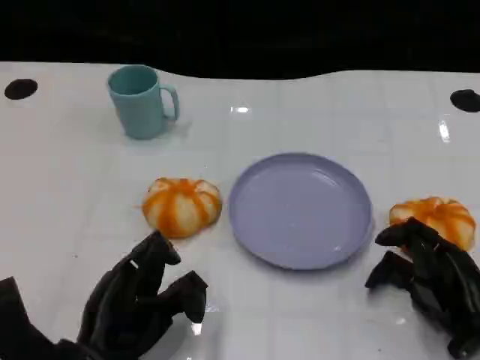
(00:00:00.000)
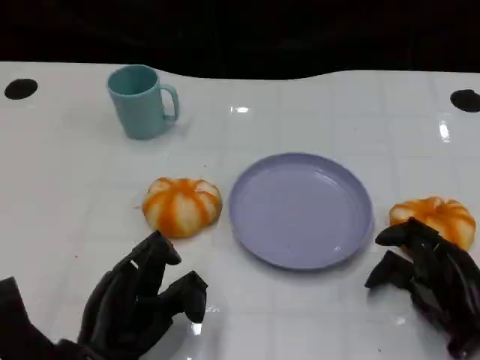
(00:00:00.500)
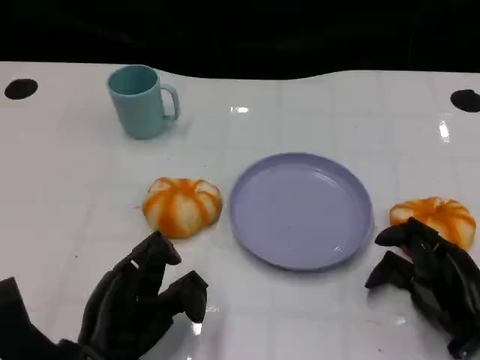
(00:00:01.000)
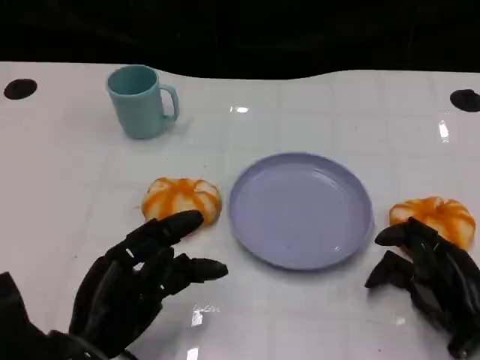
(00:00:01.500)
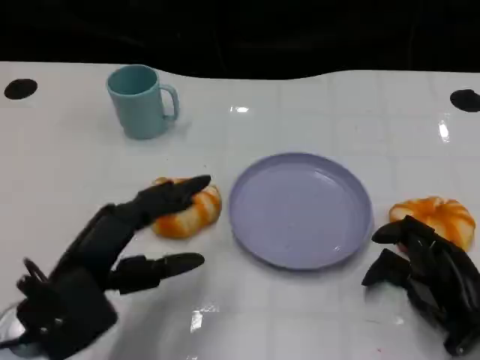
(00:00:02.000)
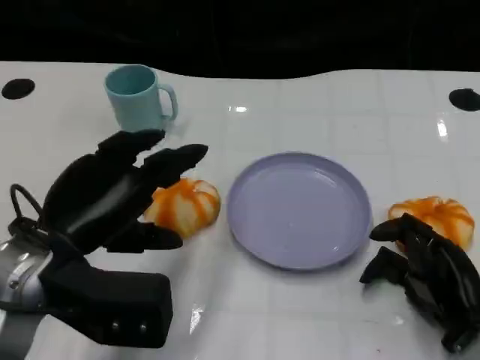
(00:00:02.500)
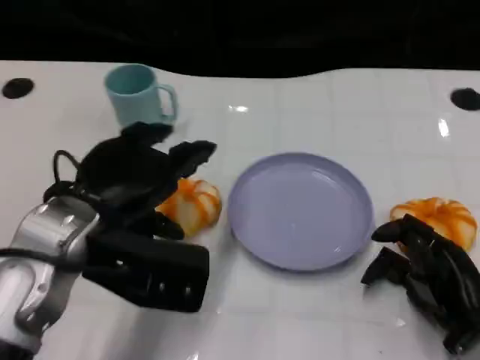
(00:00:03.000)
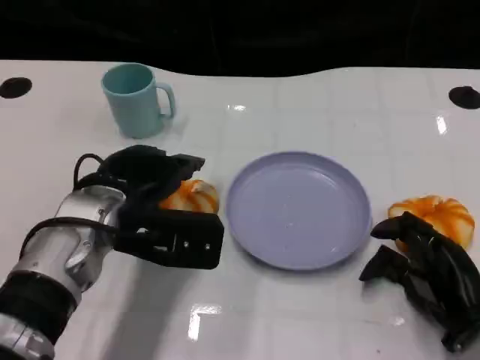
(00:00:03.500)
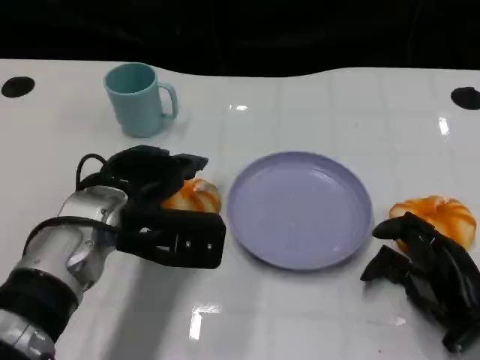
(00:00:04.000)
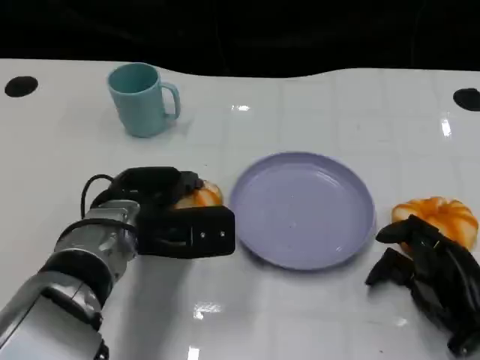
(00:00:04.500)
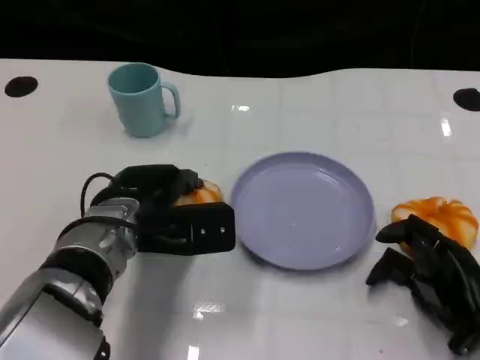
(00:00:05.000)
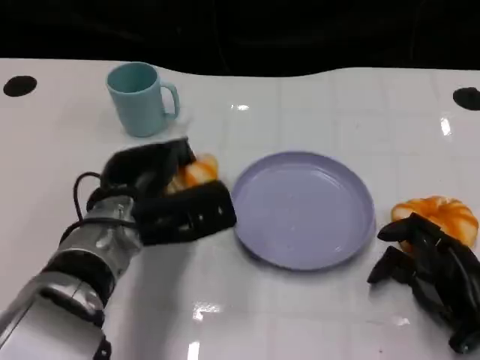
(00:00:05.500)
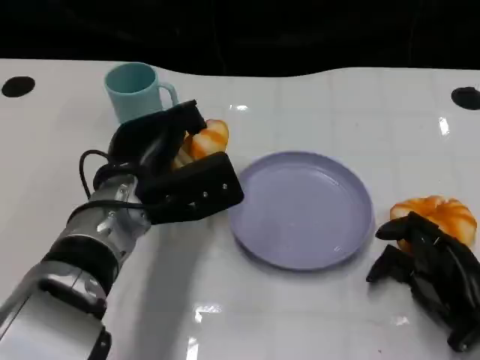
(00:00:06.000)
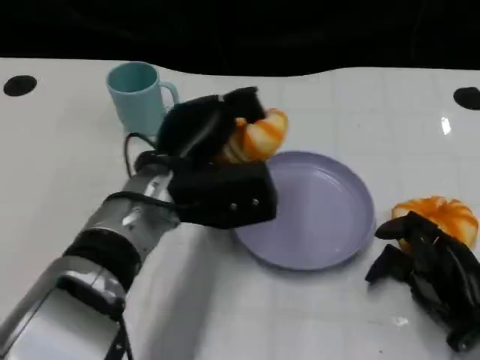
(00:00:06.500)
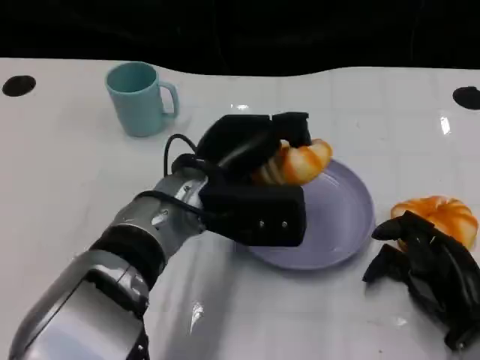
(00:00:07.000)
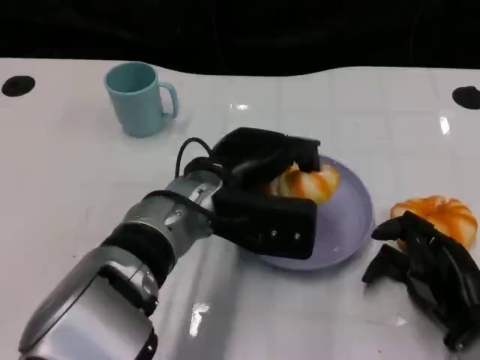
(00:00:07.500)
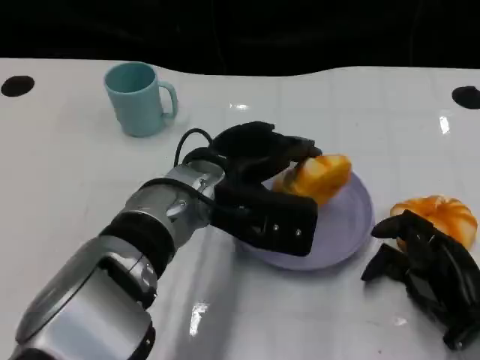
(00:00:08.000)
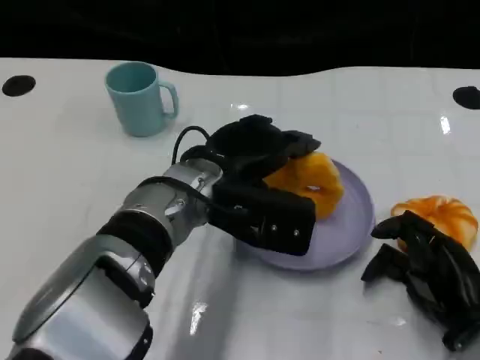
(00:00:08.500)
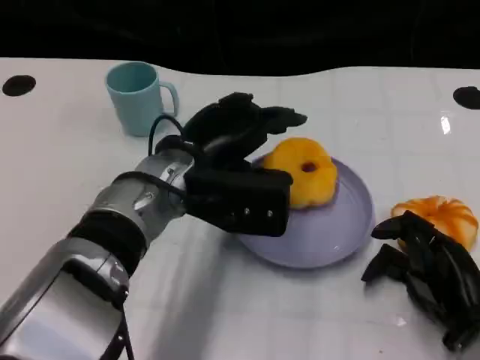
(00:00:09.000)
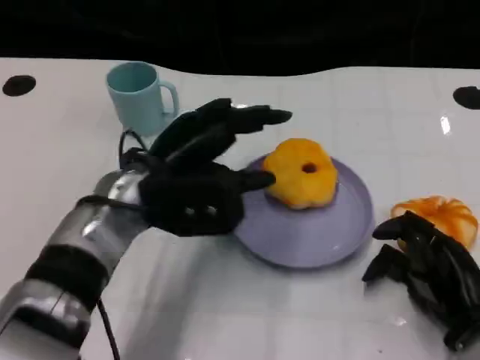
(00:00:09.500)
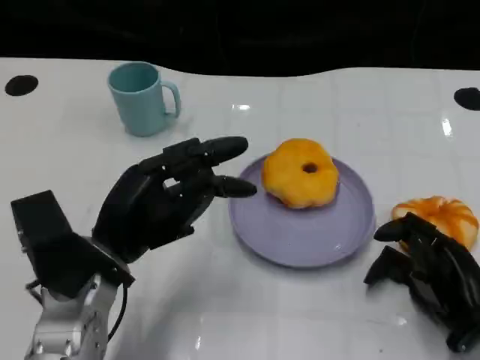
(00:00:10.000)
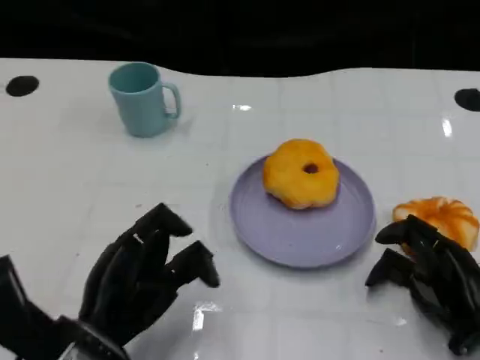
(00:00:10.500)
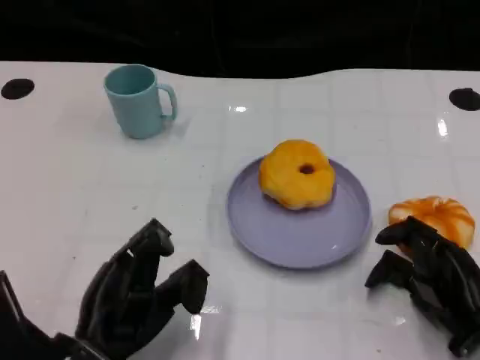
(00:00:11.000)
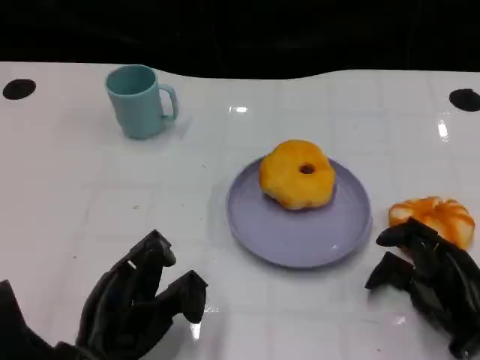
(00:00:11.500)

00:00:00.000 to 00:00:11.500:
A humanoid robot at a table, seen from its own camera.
Task of the whole recording: Grasp the bread from the table and place it into the plate.
00:00:00.000 to 00:00:02.000: The left hand heads upward, covering some 10 cm.
00:00:02.000 to 00:00:04.000: The left hand moves forward and to the right, roughly 10 cm.
00:00:06.000 to 00:00:07.500: The left hand moves to the right, about 5 cm.
00:00:07.500 to 00:00:09.500: The left hand travels to the left by approximately 5 cm.
00:00:09.500 to 00:00:11.500: The left hand goes roughly 15 cm backward, downward and to the left.

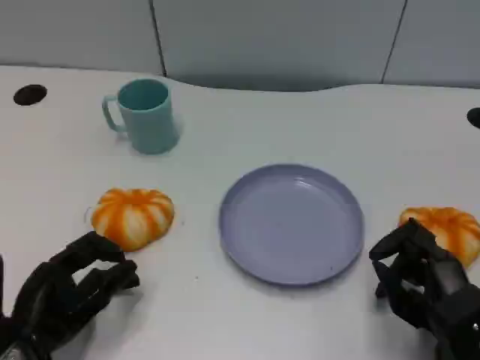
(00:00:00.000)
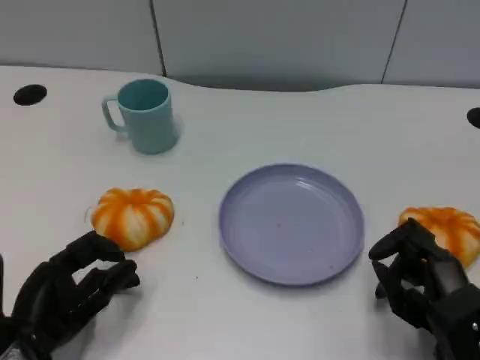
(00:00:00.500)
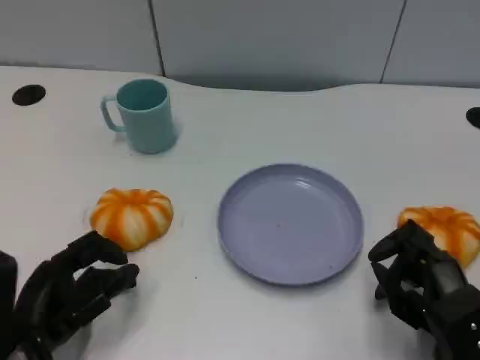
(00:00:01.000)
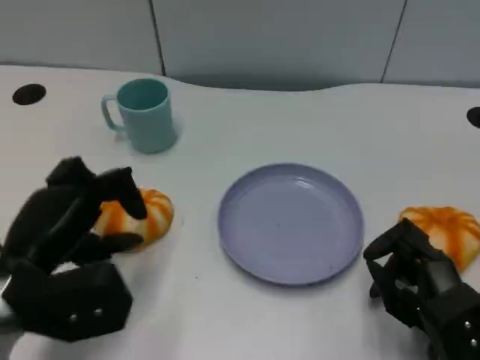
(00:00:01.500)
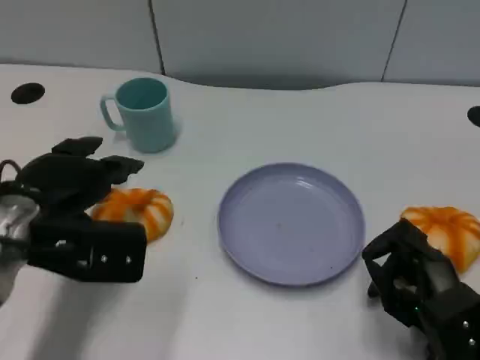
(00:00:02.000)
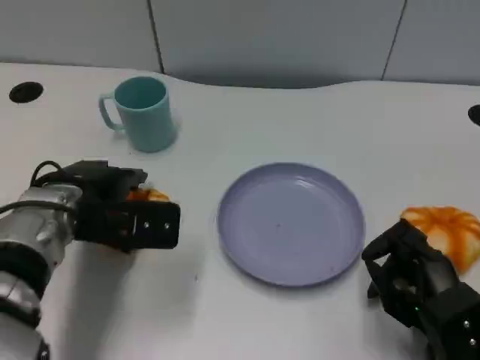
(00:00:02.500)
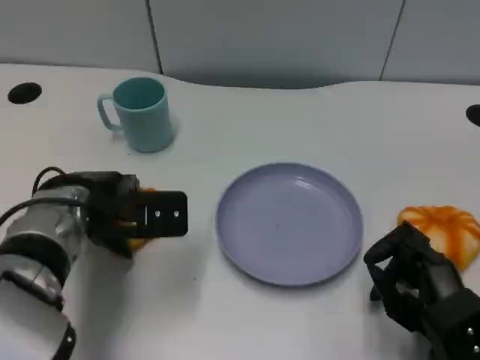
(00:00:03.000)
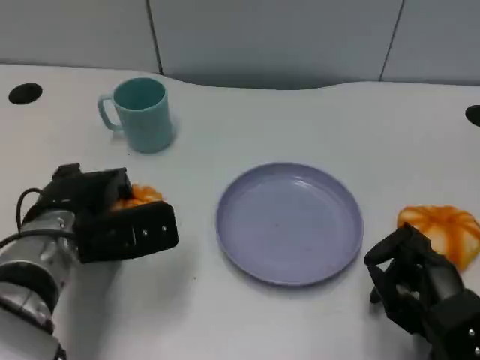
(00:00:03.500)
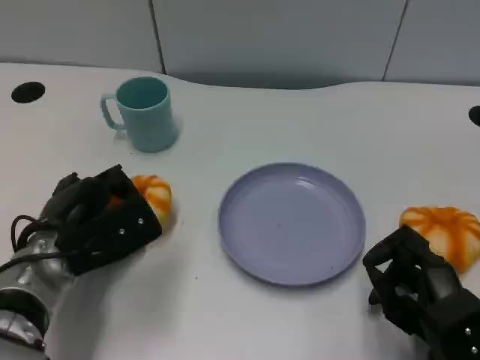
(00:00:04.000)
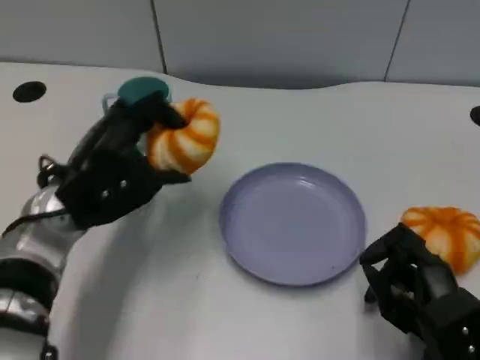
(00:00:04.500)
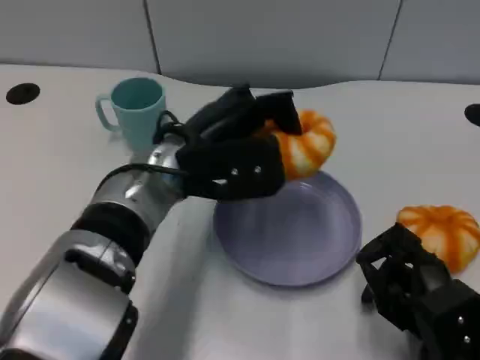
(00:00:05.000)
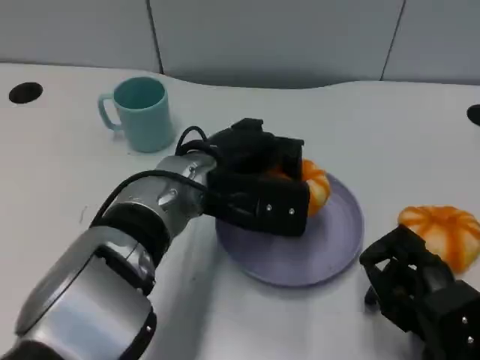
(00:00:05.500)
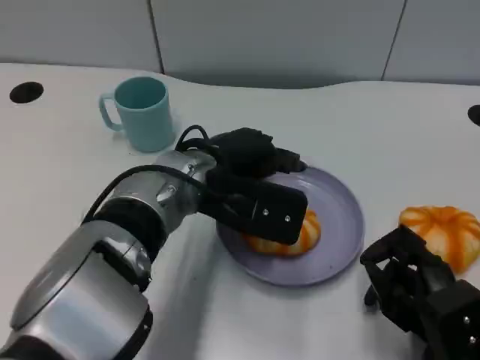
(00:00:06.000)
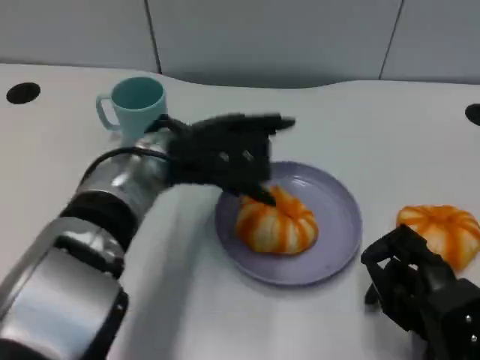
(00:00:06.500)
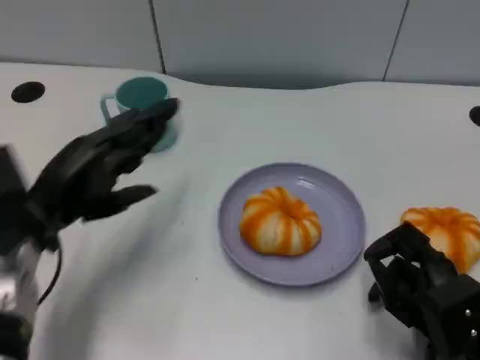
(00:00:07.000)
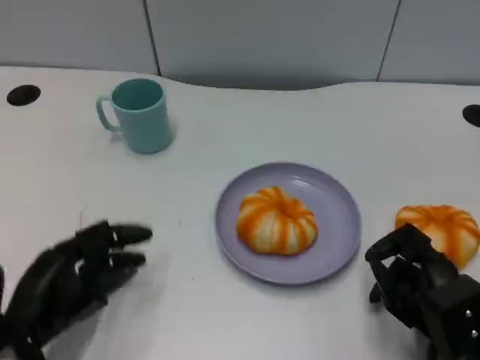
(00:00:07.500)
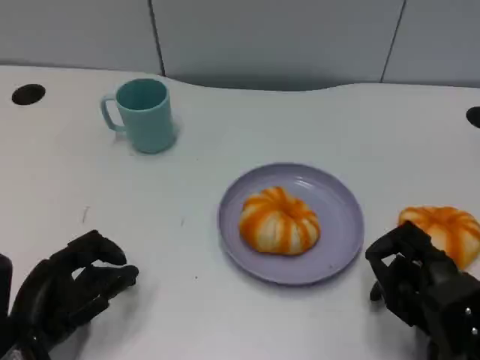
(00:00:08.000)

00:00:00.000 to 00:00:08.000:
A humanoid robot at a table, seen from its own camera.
Task of the whole recording: Grasp the bread from the table and place it into the plate.
00:00:00.000 to 00:00:02.000: The left hand heads upward and forward, covering some 15 cm.
00:00:02.000 to 00:00:04.000: The left hand shifts roughly 5 cm downward.
00:00:04.000 to 00:00:06.000: The left hand goes some 15 cm to the right and upward.
00:00:06.000 to 00:00:08.000: The left hand heads to the left, backward and downward, covering approximately 25 cm.

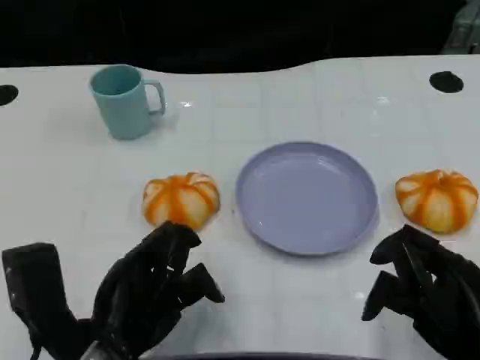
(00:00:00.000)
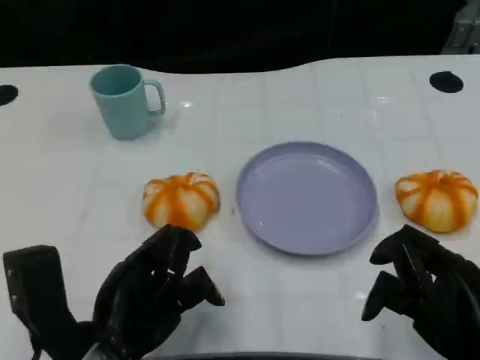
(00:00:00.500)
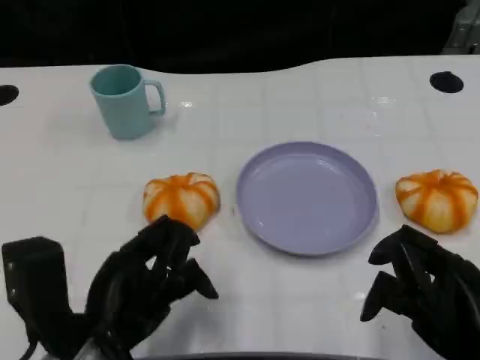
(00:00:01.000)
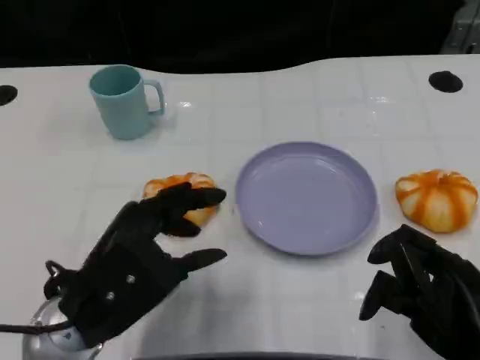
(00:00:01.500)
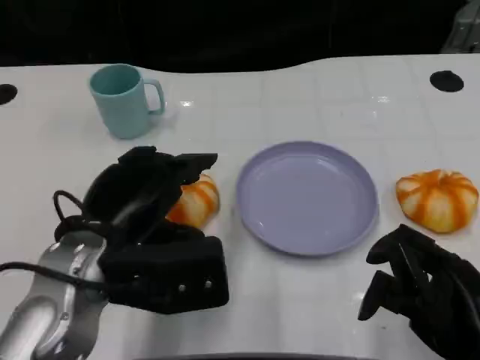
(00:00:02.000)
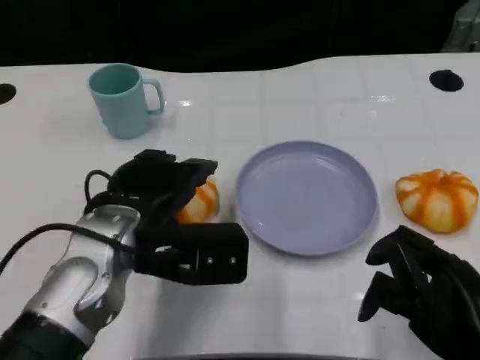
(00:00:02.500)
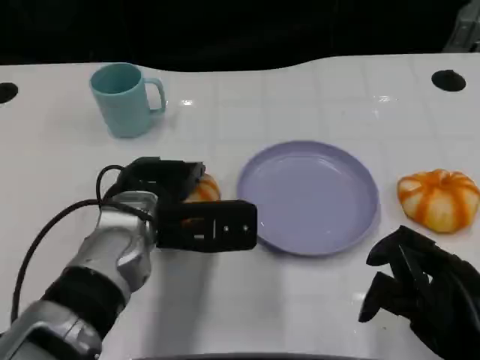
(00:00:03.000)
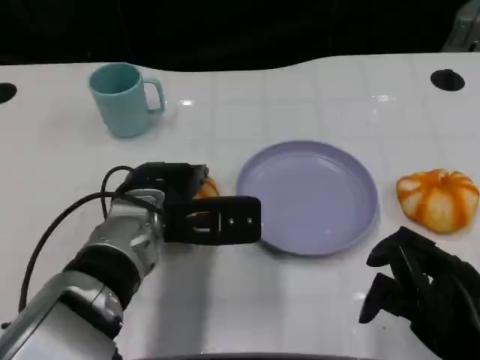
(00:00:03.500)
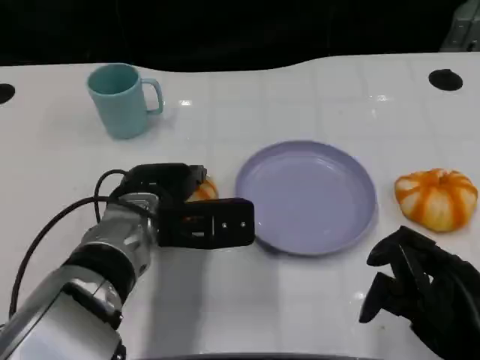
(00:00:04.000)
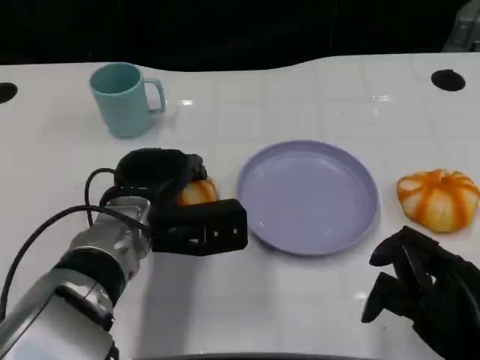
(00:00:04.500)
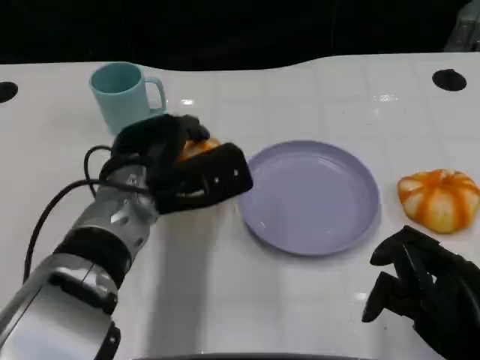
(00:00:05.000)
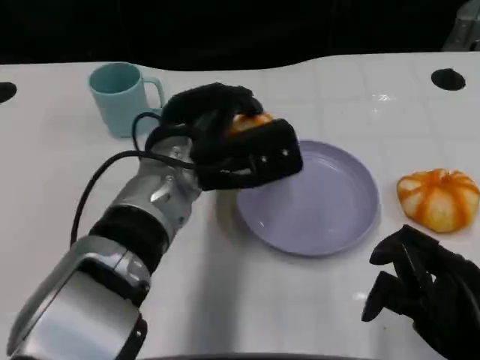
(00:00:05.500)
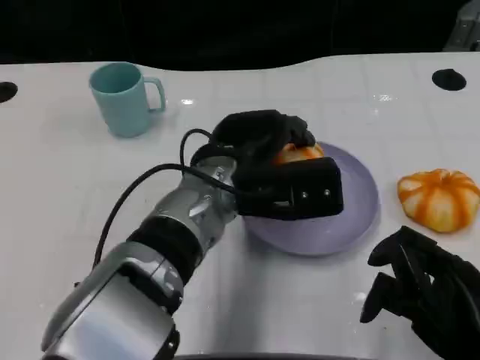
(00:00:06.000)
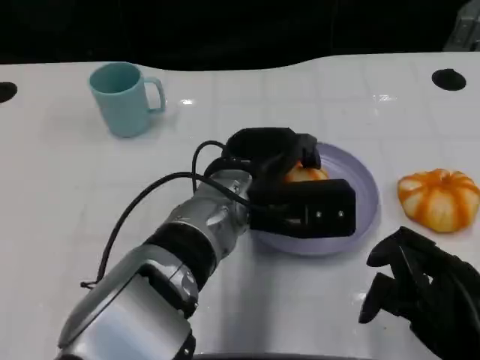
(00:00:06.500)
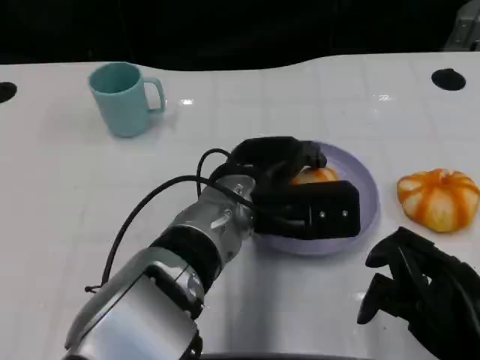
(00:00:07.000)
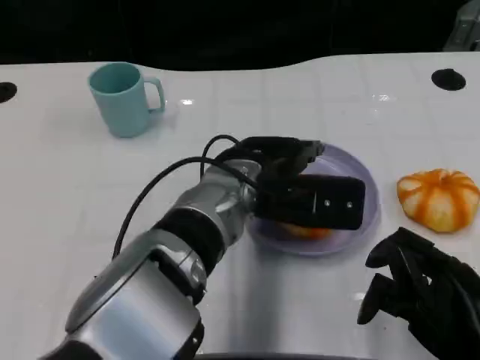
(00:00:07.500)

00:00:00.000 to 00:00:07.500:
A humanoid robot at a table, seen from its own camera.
Task of the whole recording: Grasp the bread from the table and place it into the plate.
00:00:00.000 to 00:00:02.000: The left hand goes some 10 cm forward and upward.
00:00:02.000 to 00:00:04.000: The left hand heads forward and downward, covering roughly 10 cm.
00:00:04.000 to 00:00:05.500: The left hand heads upward, covering about 5 cm.
00:00:05.500 to 00:00:07.500: The left hand moves approximately 5 cm.
